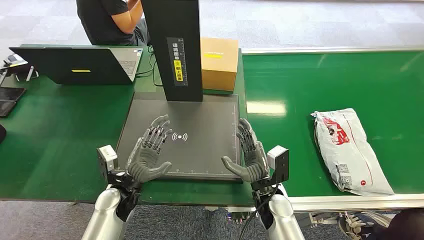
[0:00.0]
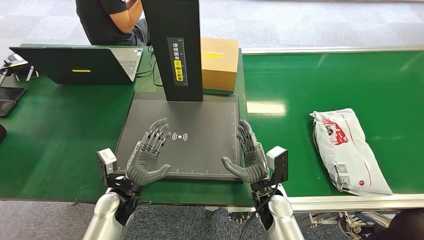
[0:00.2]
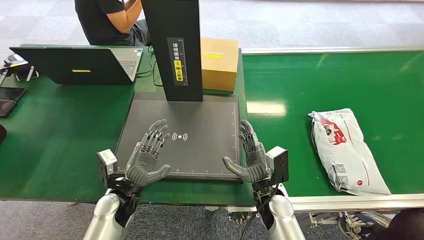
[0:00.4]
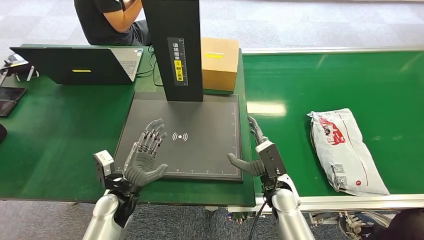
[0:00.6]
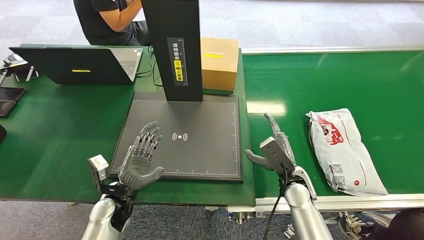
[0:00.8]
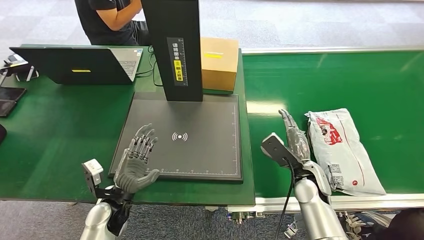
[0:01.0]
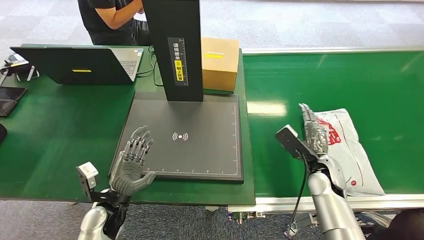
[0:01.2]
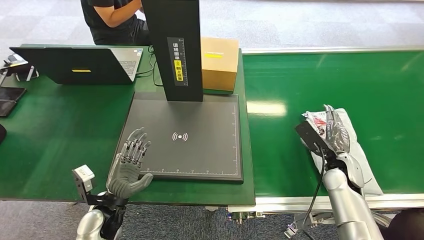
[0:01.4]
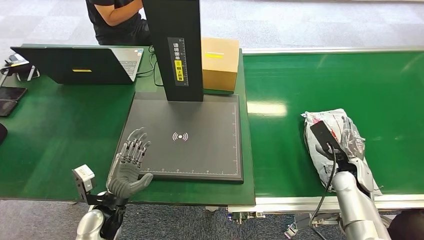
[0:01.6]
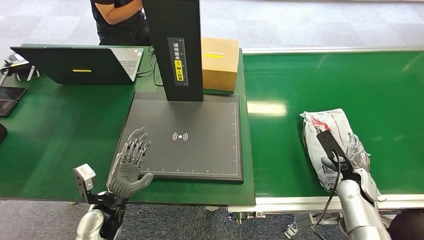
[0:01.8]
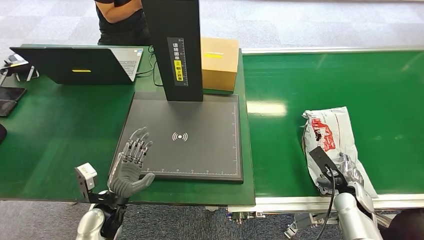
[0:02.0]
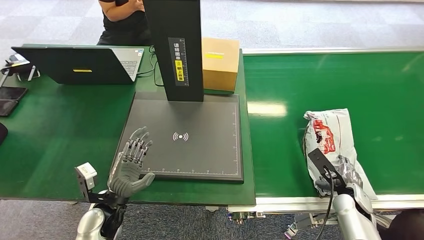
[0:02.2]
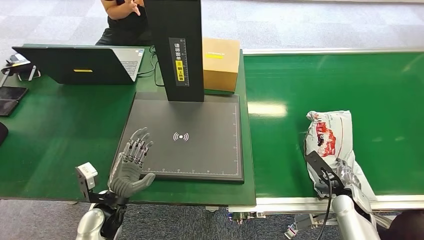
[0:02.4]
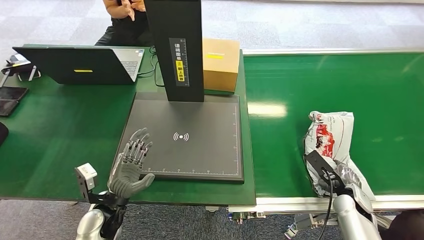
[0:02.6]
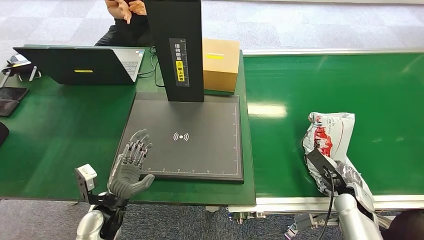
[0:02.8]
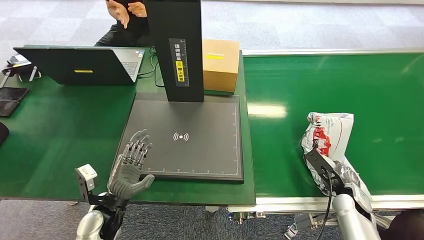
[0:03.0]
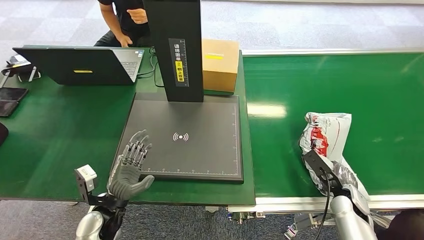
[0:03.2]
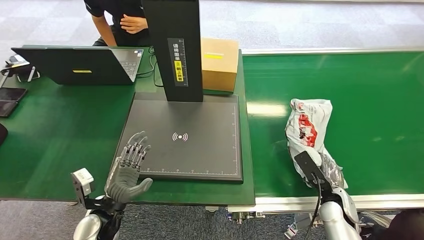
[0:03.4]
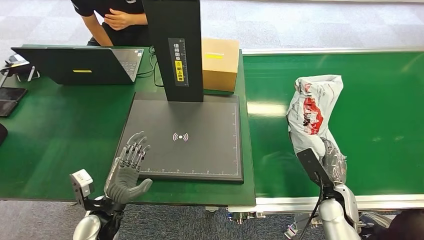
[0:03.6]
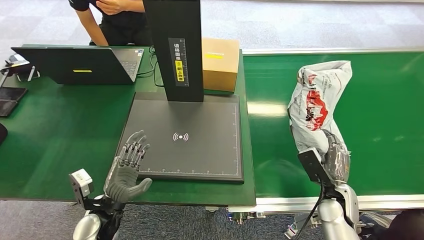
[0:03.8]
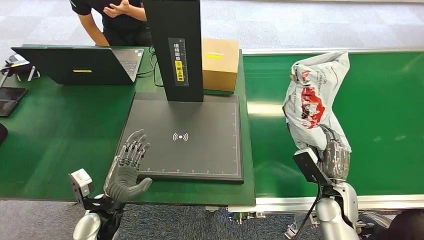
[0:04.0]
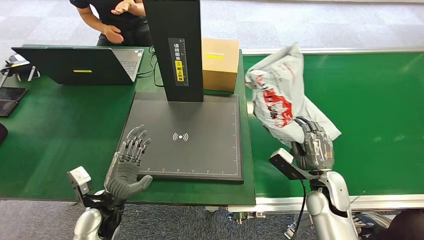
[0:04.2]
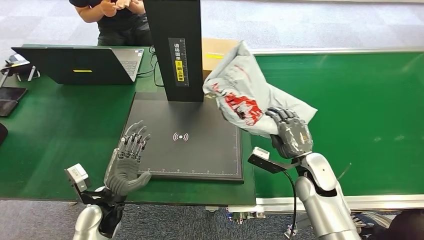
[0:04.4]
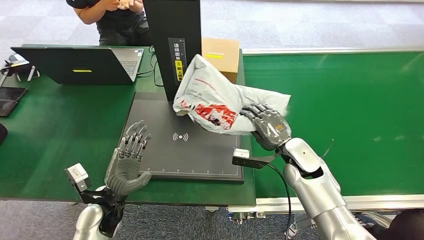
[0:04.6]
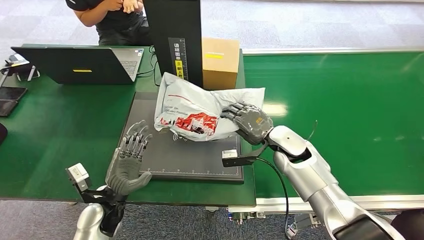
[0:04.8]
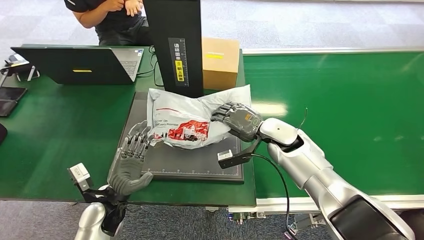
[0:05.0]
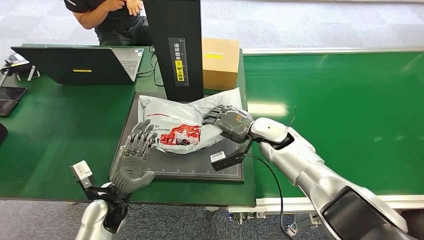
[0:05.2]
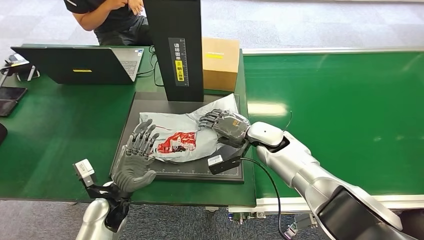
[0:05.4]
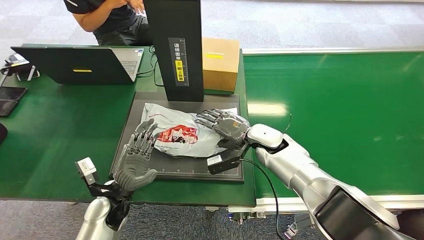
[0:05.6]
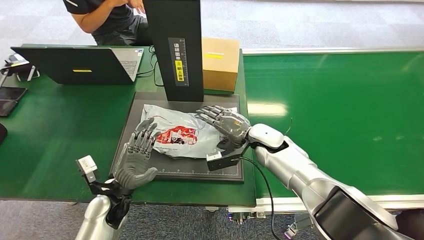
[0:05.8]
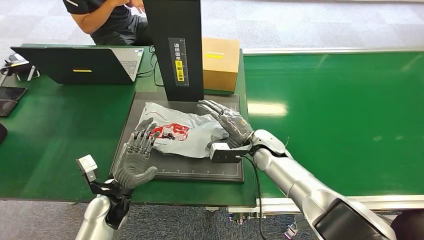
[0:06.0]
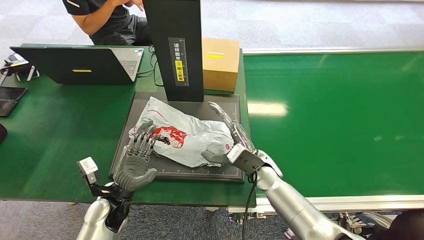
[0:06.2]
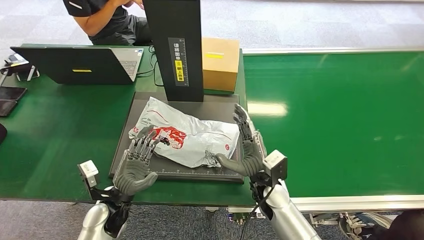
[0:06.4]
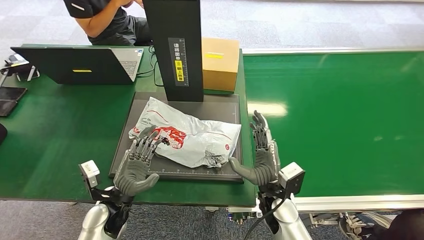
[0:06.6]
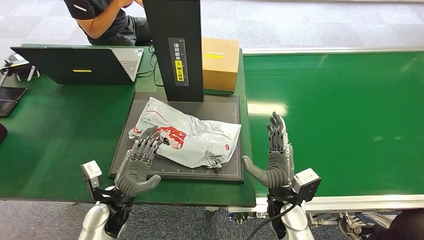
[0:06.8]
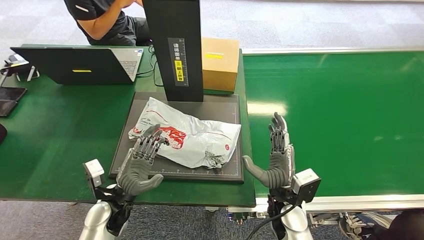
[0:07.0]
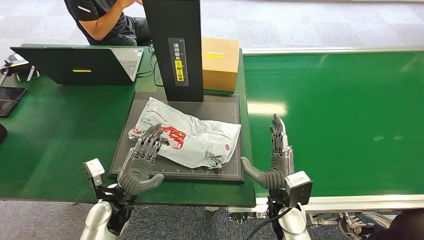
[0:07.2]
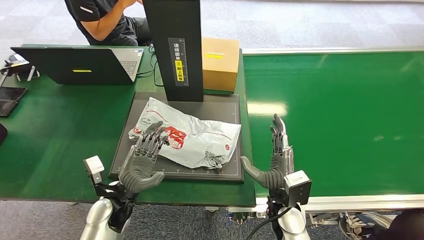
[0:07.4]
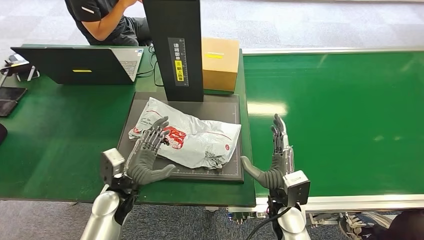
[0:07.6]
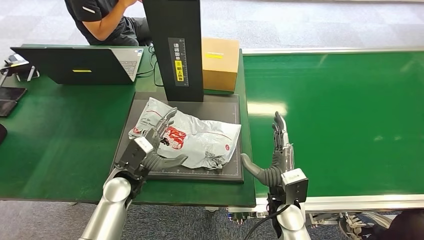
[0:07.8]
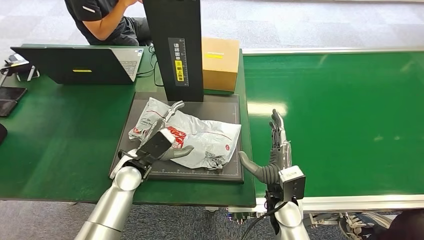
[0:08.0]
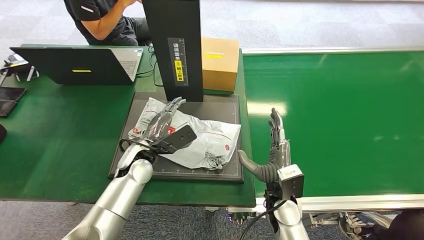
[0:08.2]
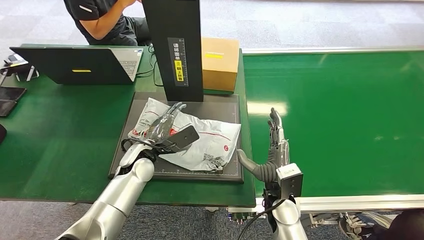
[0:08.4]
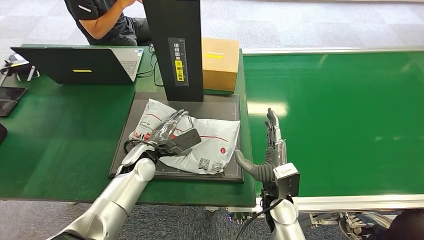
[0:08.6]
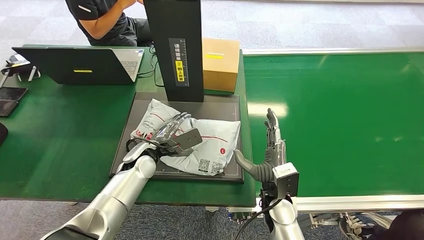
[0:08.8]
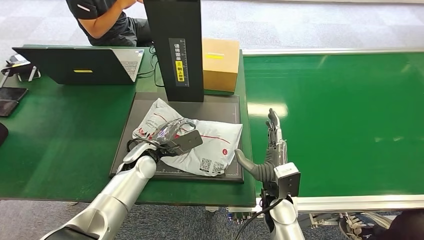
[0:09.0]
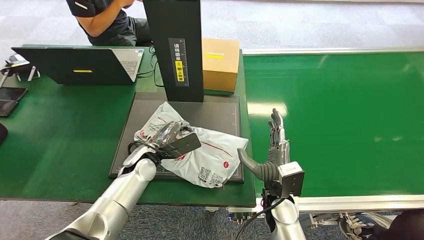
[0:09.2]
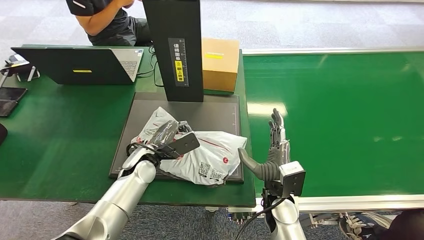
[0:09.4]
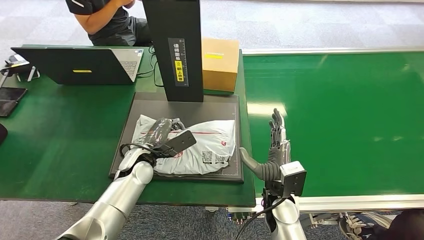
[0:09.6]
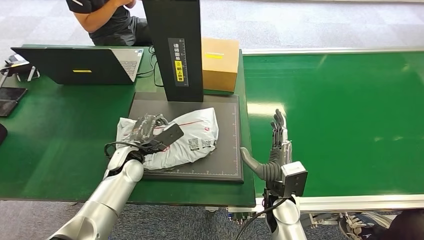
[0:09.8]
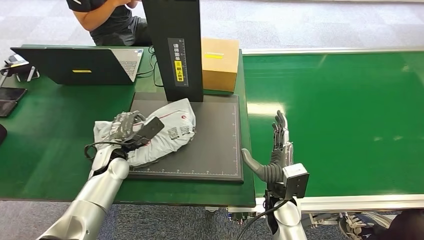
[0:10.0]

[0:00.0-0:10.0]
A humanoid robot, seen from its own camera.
Step, 0:00.0 to 0:03.8: Pick up the package from the conveyor belt.
Step, 0:04.0 to 0:07.0: Place the package onto the inbound machine.
0:01.4 to 0:02.8: The right hand travels downward and backward by approximately 10 cm.
0:02.8 to 0:04.2: The right hand travels to the left and upward by approximately 10 cm.
0:05.8 to 0:07.2: The right hand moves backward, roughly 15 cm.
0:07.2 to 0:08.6: The left hand goes approximately 10 cm forward.
0:08.6 to 0:10.0: The left hand travels to the left by approximately 10 cm.

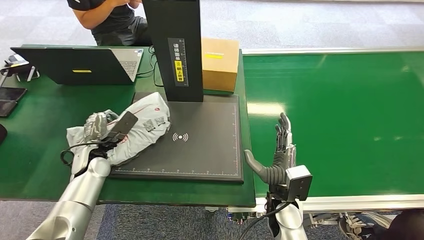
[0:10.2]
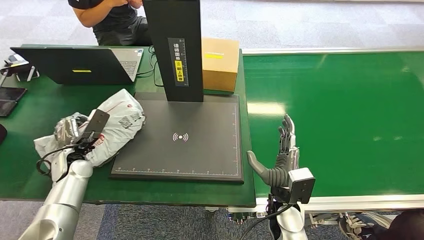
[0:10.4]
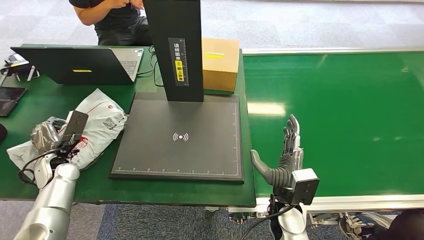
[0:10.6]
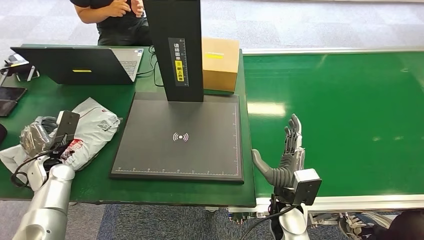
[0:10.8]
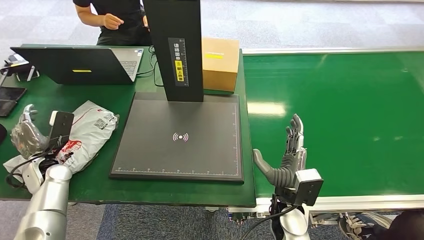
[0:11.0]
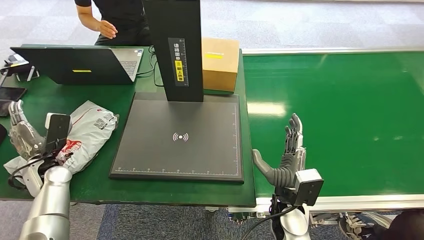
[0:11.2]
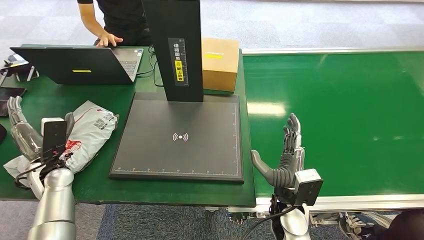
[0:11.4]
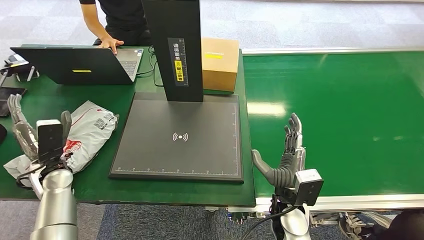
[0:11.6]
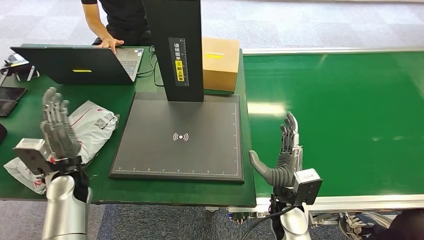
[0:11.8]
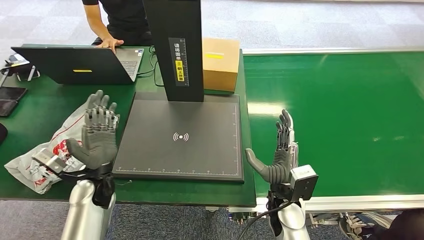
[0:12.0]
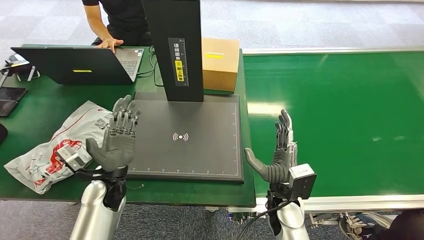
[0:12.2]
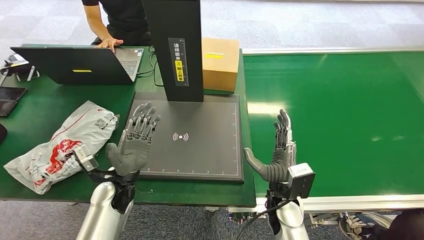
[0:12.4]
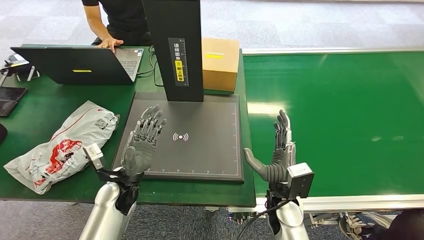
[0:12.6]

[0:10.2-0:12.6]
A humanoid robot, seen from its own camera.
Step, 0:10.4 to 0:12.6: Place the package into the parcel locker.
0:10.2 to 0:11.4: The left hand moves to the left, roughly 5 cm.
0:11.4 to 0:12.6: The left hand moves to the right, about 20 cm.
